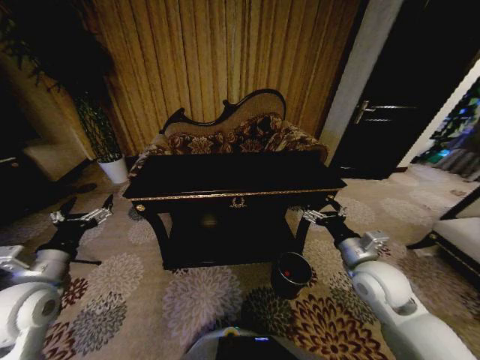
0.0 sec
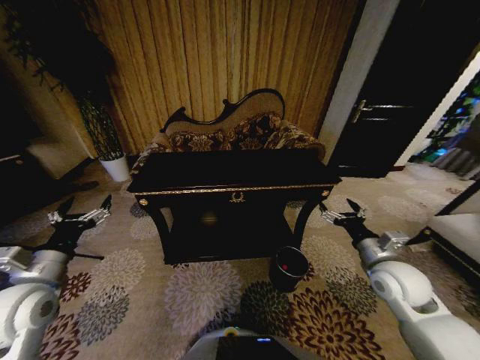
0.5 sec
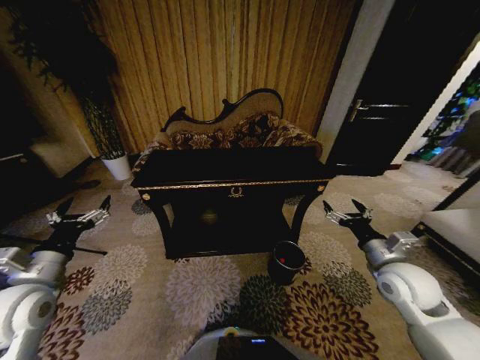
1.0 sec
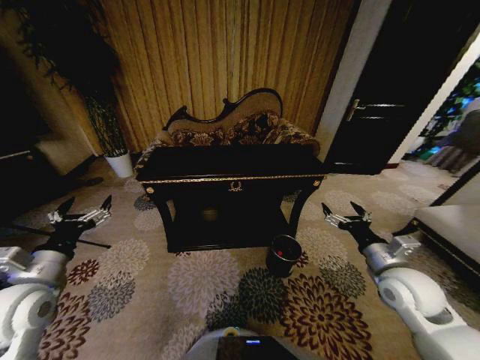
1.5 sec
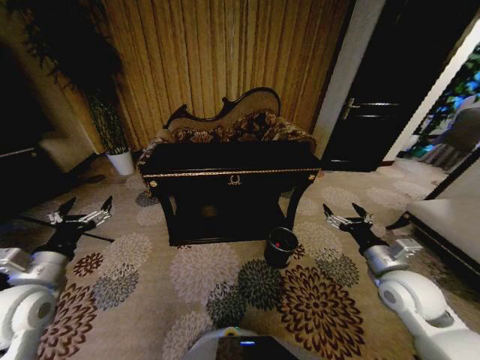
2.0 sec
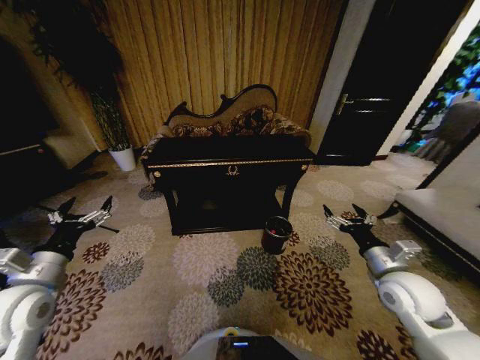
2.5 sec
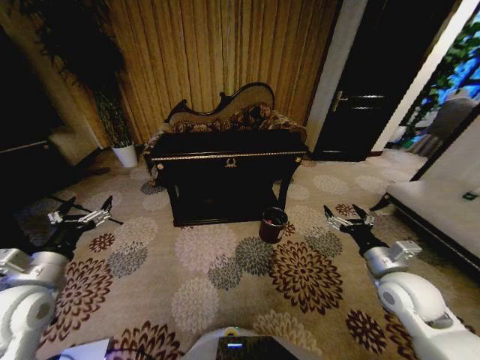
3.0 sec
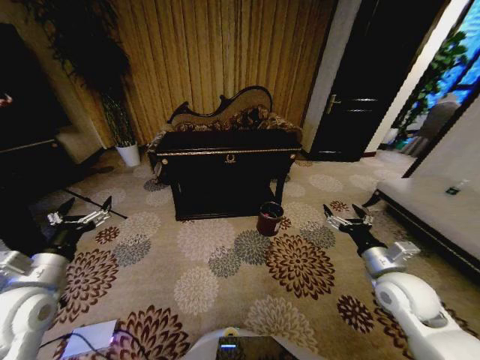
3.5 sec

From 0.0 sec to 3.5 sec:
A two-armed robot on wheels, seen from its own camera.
Task of the whole recording: Move to the front of the table and place the trash on the table into the trash bin.
From 0.0 sec to 2.0 sec: The right gripper shifts about 5 cm to the right.
